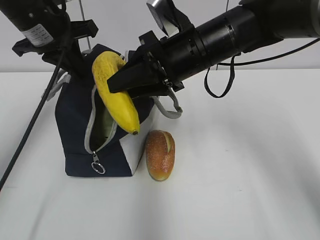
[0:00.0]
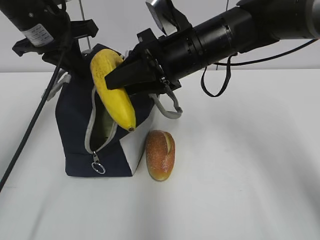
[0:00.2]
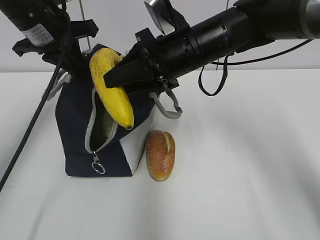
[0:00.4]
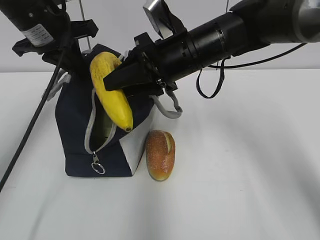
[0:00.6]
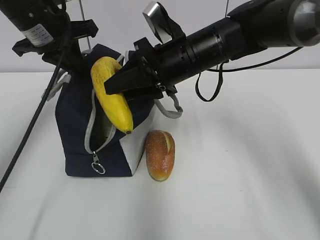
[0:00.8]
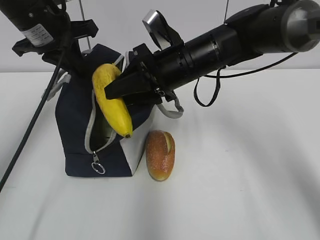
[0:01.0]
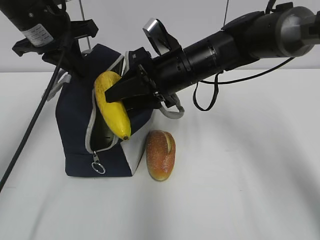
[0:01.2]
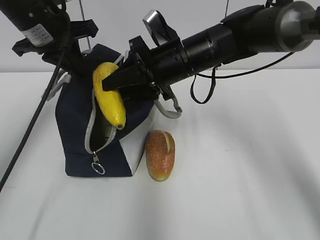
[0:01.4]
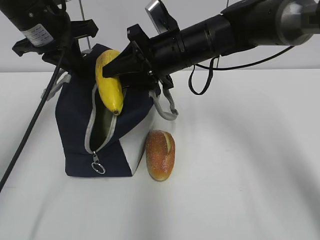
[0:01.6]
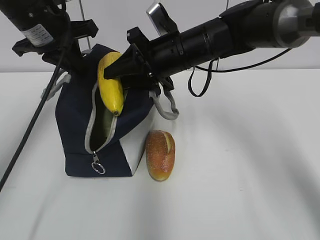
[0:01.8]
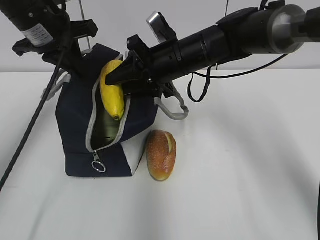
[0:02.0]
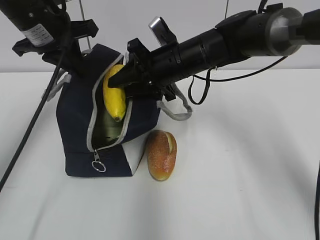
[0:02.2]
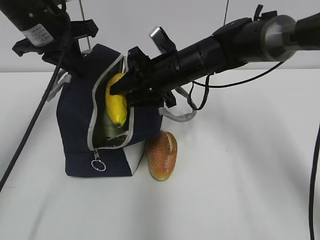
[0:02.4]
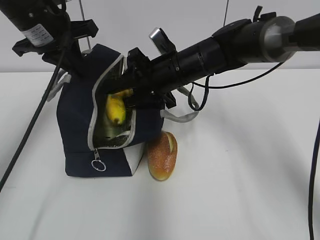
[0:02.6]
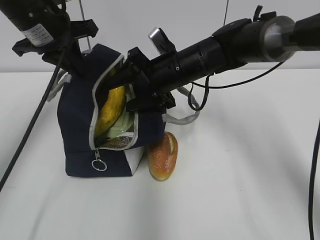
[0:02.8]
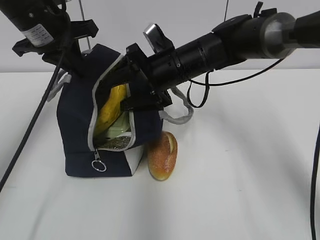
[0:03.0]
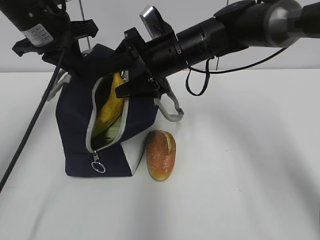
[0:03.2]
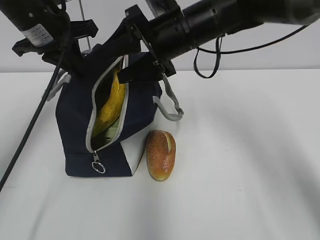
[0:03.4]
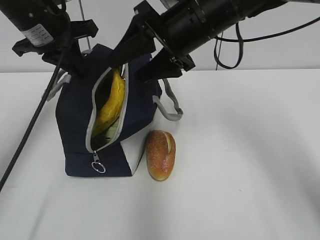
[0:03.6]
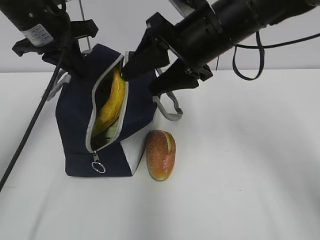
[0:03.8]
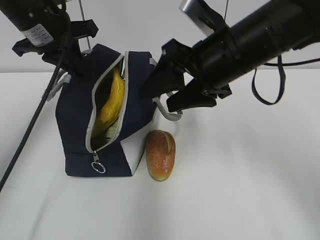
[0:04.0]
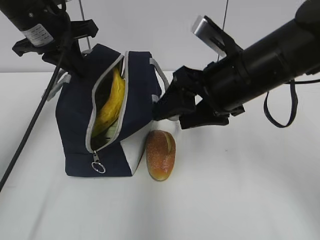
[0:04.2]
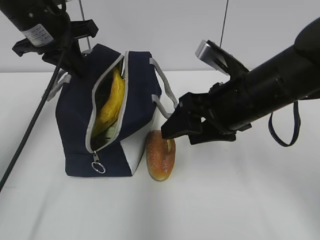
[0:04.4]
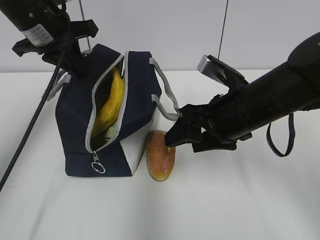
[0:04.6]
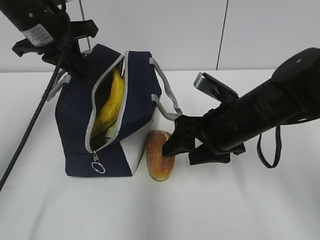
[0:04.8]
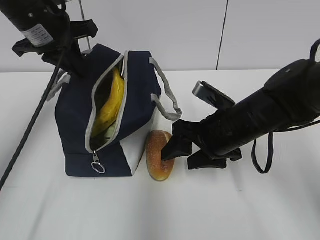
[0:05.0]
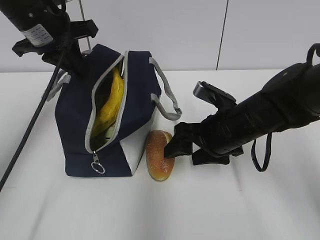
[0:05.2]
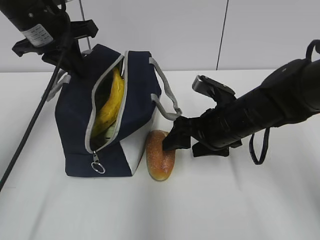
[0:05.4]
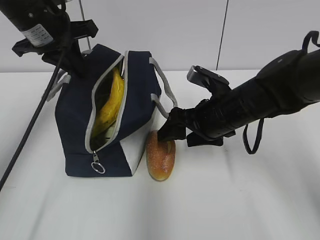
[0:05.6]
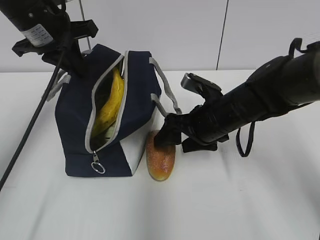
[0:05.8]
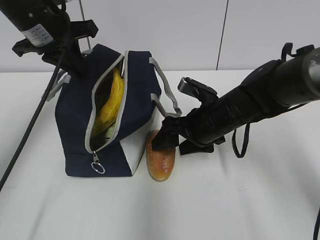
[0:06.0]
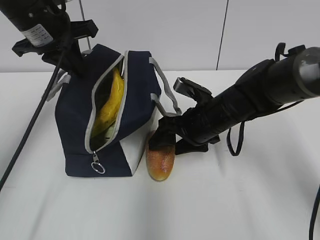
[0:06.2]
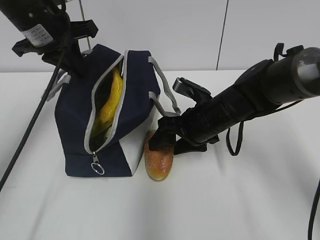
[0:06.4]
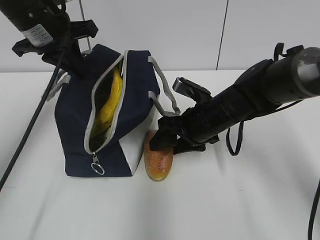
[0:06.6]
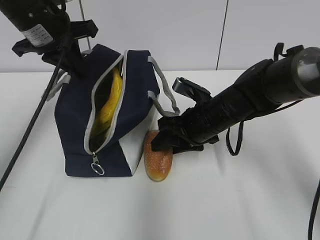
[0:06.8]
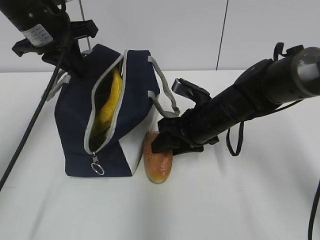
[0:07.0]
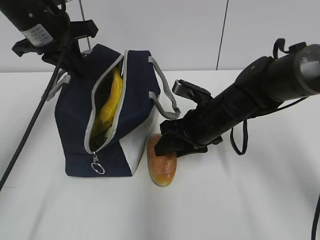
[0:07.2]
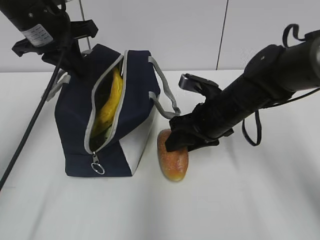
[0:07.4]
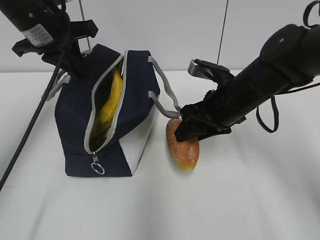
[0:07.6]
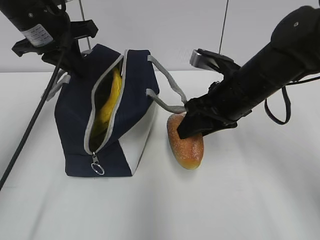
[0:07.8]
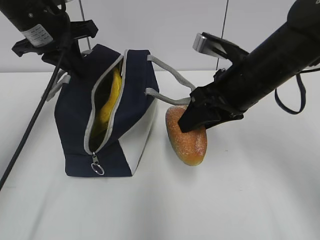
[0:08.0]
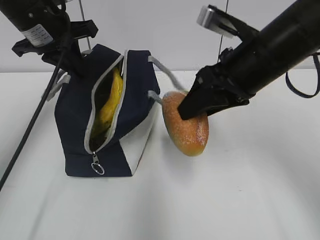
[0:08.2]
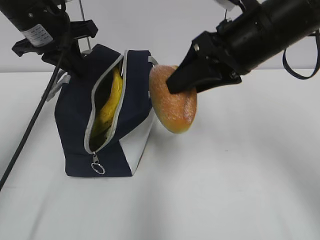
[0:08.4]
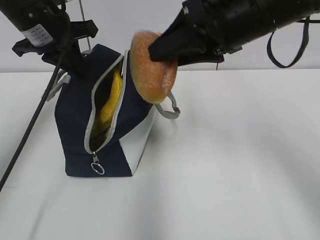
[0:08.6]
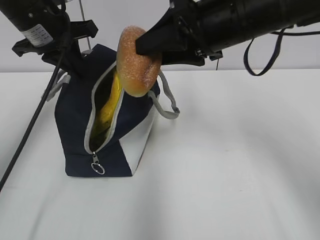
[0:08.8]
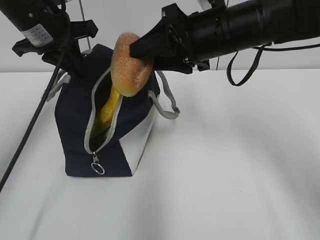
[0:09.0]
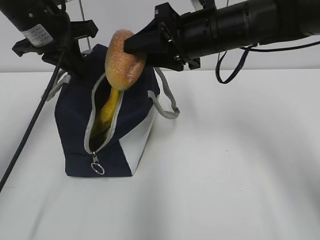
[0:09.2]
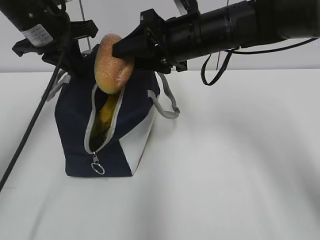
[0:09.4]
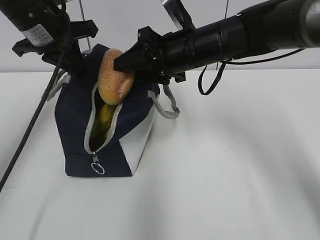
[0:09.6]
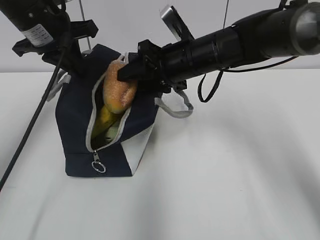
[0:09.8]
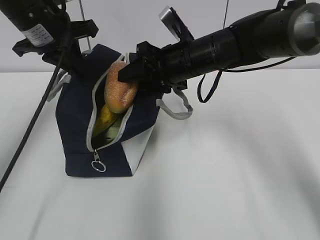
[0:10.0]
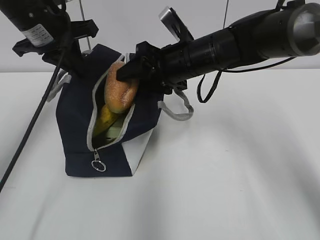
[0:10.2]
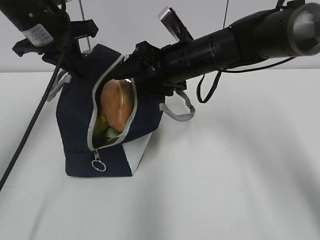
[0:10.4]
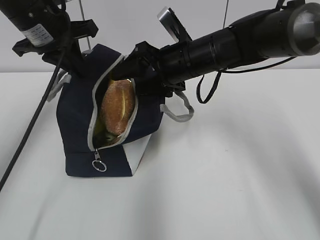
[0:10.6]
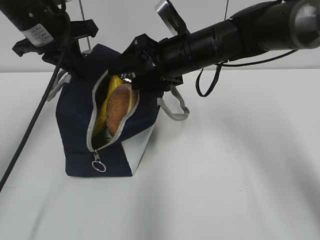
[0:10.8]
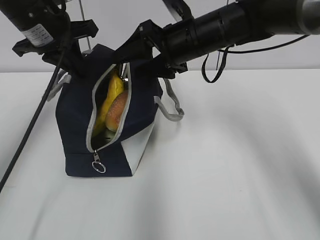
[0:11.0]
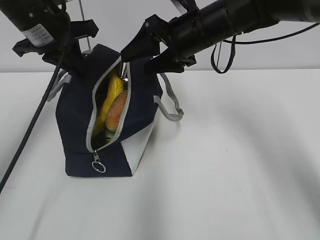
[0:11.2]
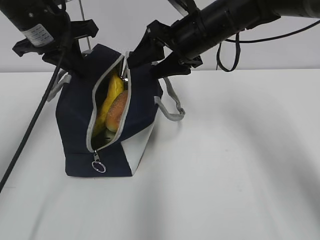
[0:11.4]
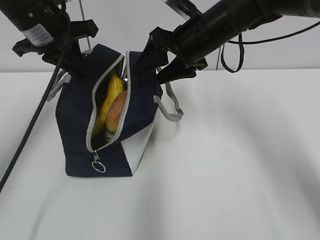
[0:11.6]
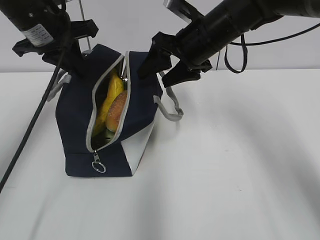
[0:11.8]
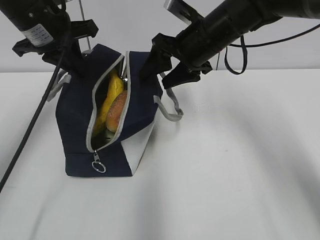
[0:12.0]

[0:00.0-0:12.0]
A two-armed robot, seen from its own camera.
Step, 0:00.0 to 0:02.4: Place it into the bag with your right hand.
Step, 0:02.8 to 0:07.2: Grab the bread with your right hand.
0:00.0 to 0:01.6: The right gripper moves roughly 5 cm.
0:01.6 to 0:03.0: The right gripper opens up.
0:03.0 to 0:04.4: The right gripper is displaced backward and to the right by some 15 cm.
0:04.4 to 0:06.0: The right gripper goes approximately 10 cm downward and forward.
0:06.0 to 0:07.6: The right gripper closes its fingers.
0:07.6 to 0:09.0: The right gripper goes approximately 10 cm upward.
0:09.0 to 0:10.4: The right gripper shifts approximately 10 cm downward and forward.
0:10.4 to 0:12.0: The grippers make only small movements.

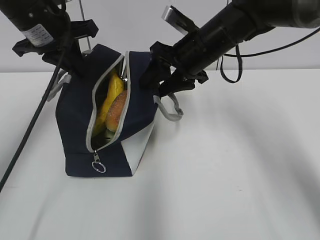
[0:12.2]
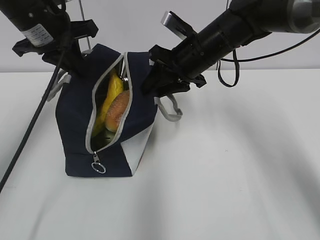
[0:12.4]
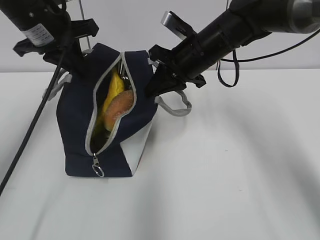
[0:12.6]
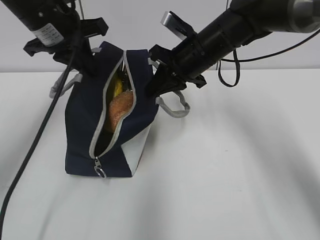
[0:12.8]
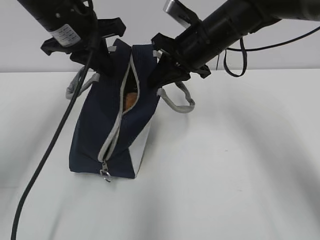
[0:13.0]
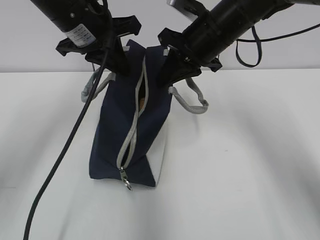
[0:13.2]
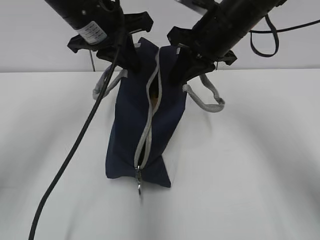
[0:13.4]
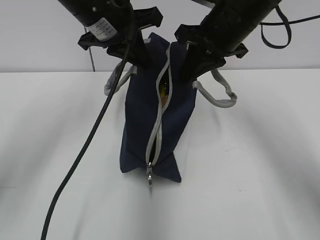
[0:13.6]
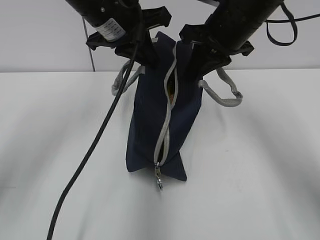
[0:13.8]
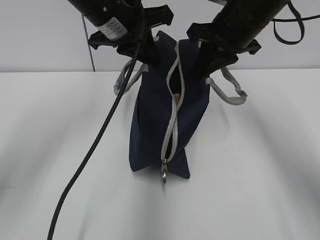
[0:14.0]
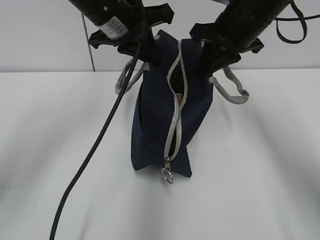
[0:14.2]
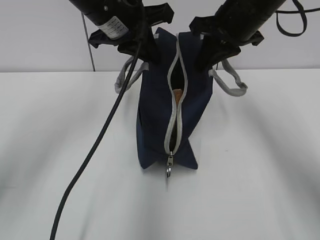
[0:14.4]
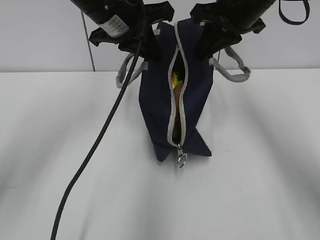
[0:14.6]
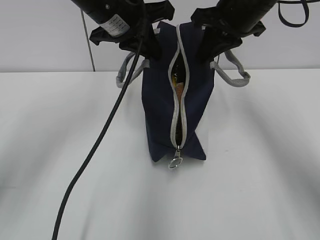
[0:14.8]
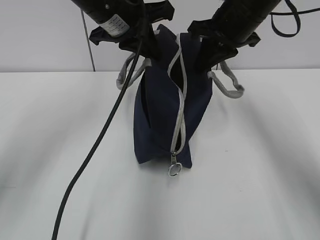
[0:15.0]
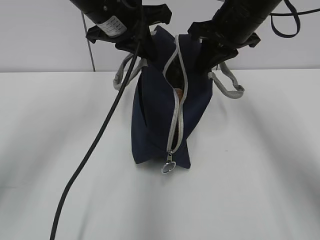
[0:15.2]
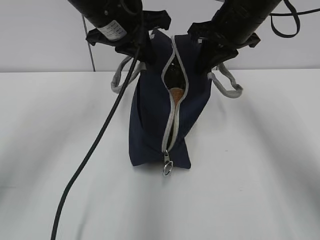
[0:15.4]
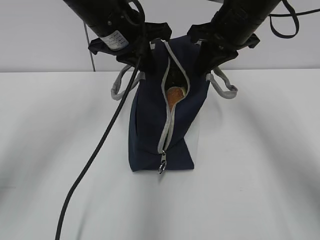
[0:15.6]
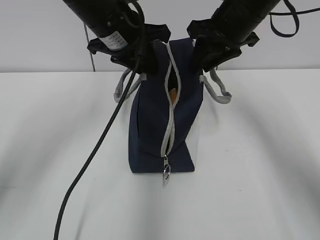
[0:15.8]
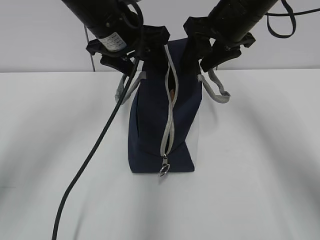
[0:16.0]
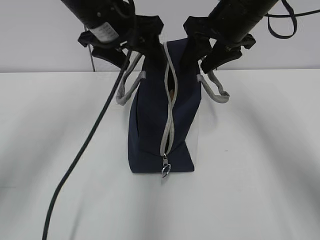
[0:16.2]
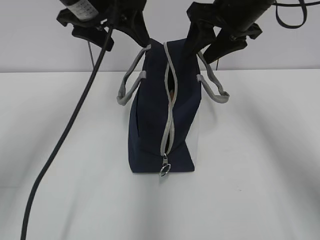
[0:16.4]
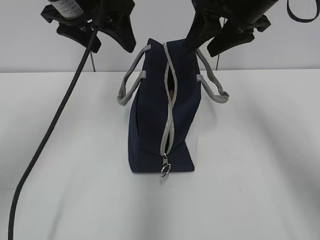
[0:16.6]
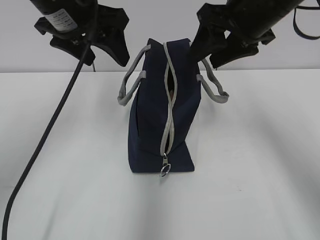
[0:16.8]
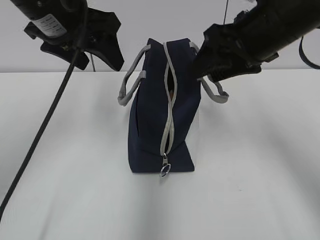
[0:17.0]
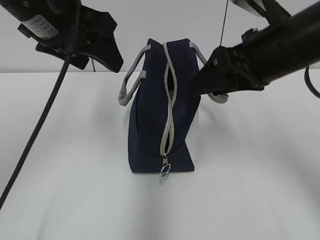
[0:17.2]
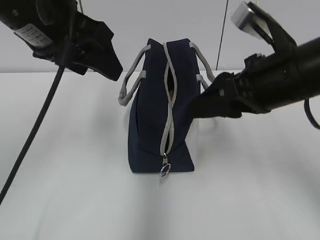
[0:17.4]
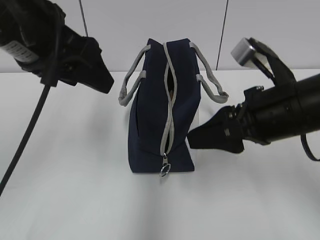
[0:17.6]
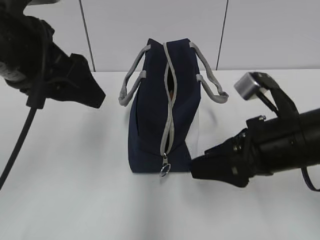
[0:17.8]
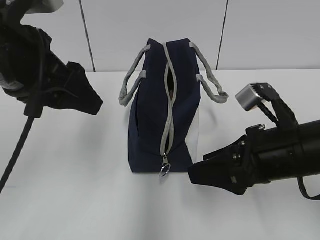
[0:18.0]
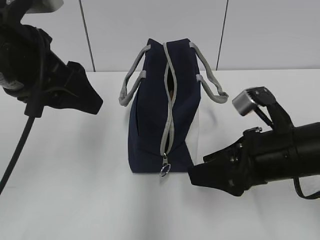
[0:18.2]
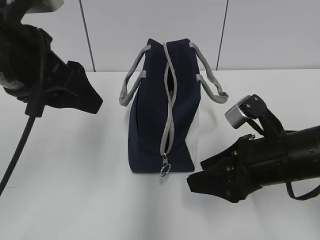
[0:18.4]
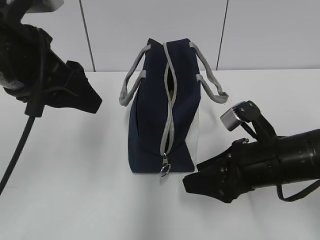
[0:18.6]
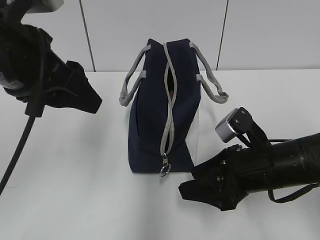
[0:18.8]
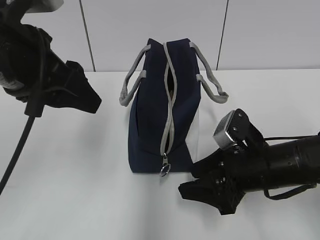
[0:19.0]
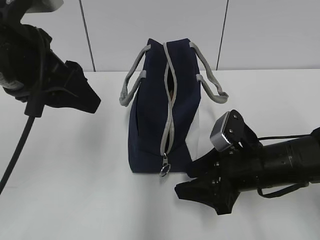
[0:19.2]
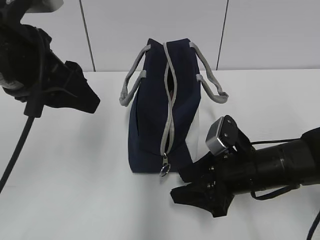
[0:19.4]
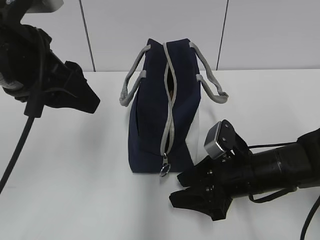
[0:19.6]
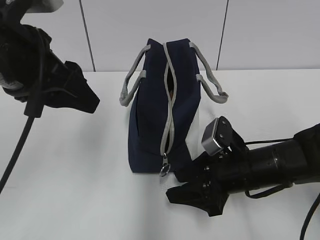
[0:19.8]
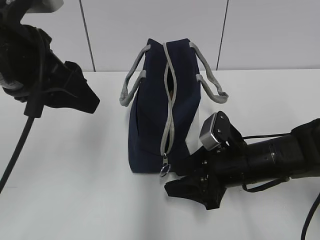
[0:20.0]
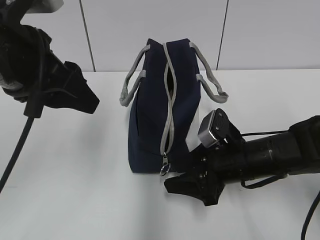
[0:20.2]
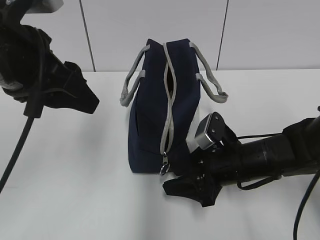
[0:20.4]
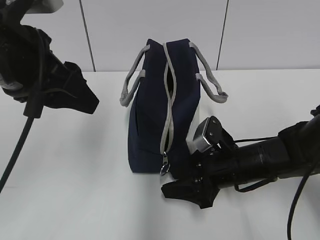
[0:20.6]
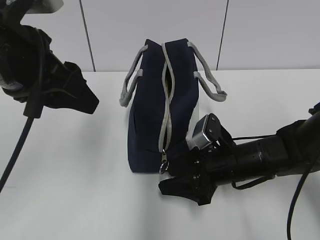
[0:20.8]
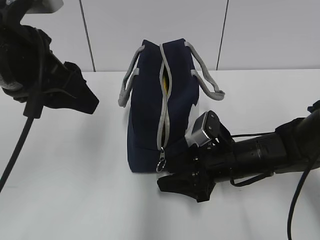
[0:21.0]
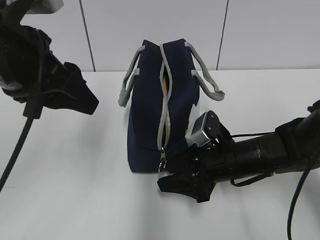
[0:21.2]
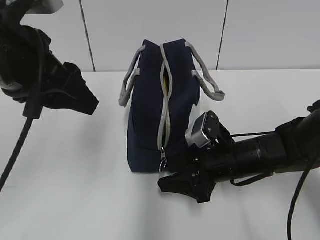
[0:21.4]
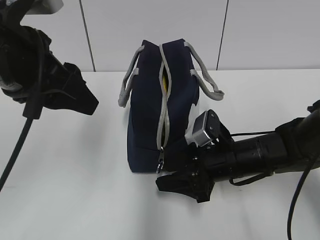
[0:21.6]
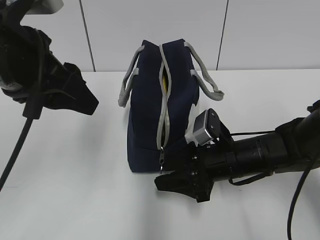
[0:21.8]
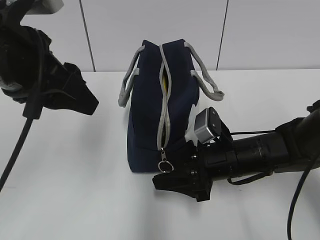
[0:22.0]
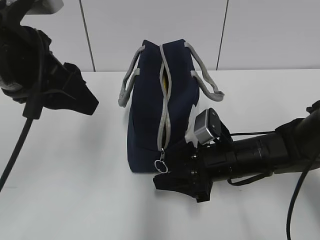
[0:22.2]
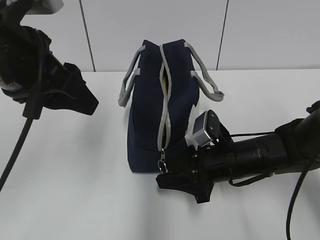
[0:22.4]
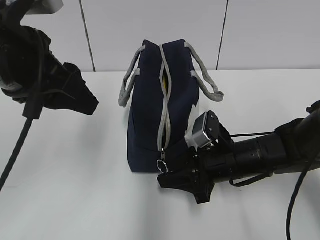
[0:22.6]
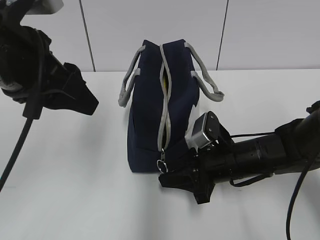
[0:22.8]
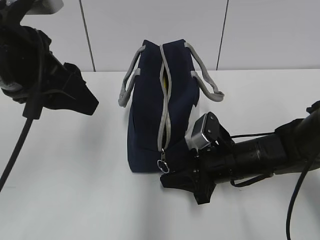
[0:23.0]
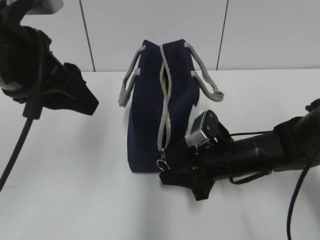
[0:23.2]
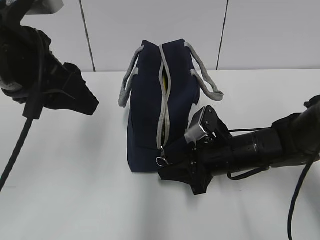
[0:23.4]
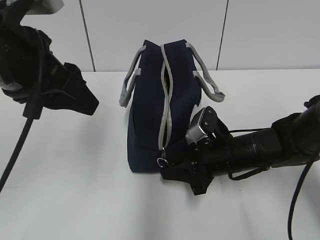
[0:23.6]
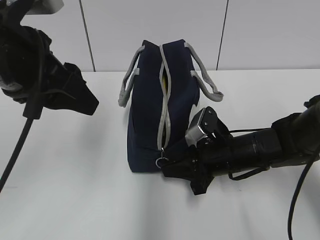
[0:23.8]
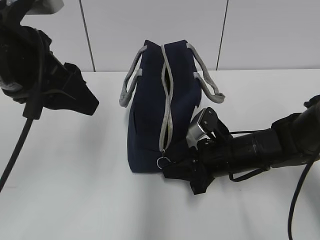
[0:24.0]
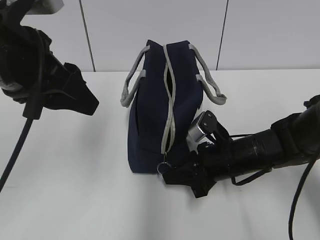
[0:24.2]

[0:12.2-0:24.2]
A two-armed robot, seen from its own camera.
Step, 0:13.2 to 0:15.8: Move the lunch bag to the right.
0:12.2 to 0:13.8: The left gripper goes roughly 10 cm to the right. The right gripper goes roughly 5 cm upward, and closes up.
0:13.8 to 0:15.2: The grippers make only small movements.
0:15.2 to 0:16.6: The left gripper shifts by about 5 cm, and opens up. The right gripper opens its fingers.
0:16.6 to 0:18.2: The right gripper shifts approximately 20 cm downward and backward. Meanwhile the left gripper moves backward, approximately 10 cm.
0:18.2 to 0:19.8: The right gripper heads downward, covering some 10 cm.
0:19.8 to 0:22.6: The grippers make only small movements.
0:22.6 to 0:24.2: The right gripper closes.
